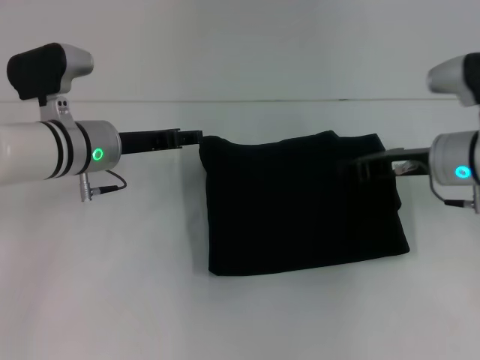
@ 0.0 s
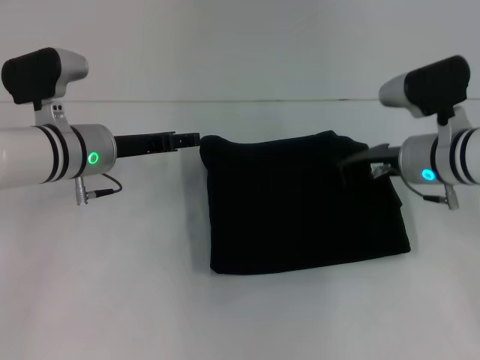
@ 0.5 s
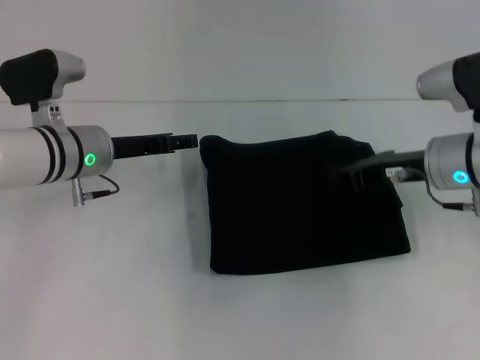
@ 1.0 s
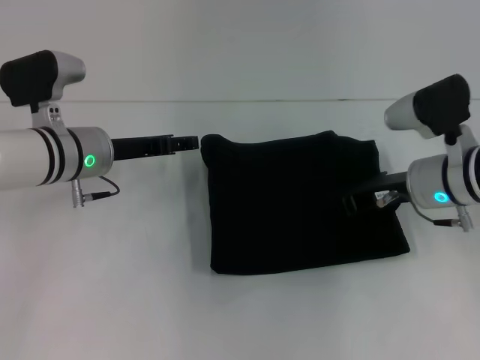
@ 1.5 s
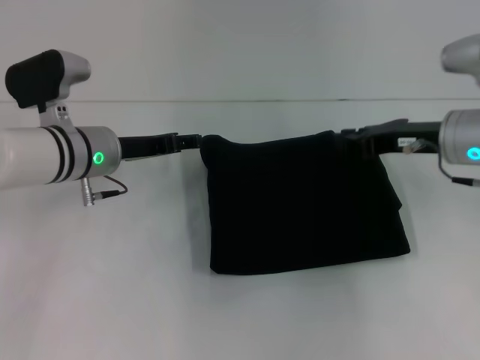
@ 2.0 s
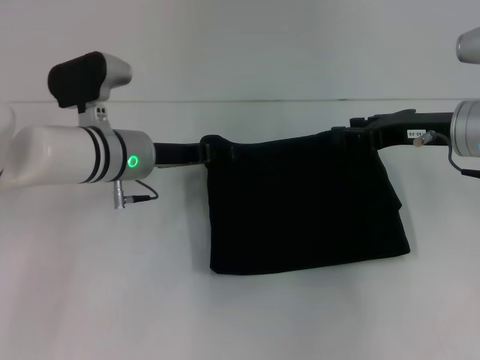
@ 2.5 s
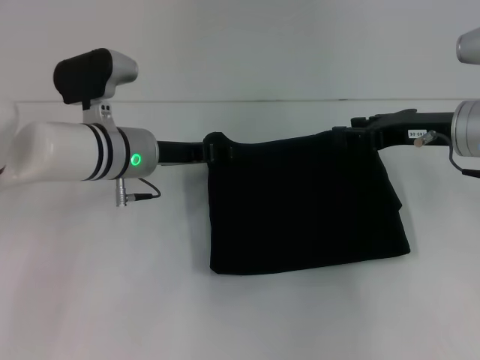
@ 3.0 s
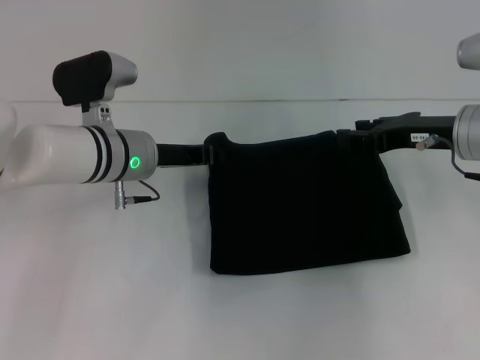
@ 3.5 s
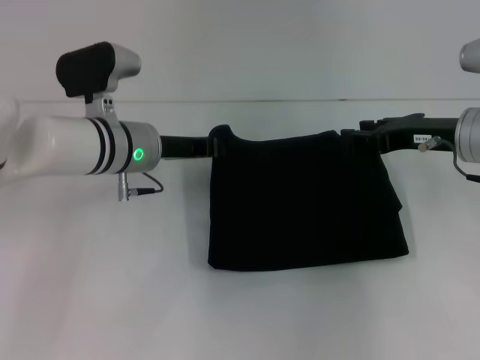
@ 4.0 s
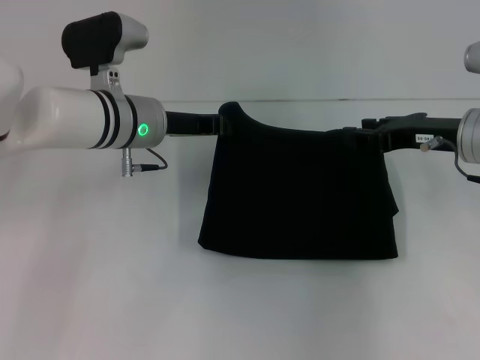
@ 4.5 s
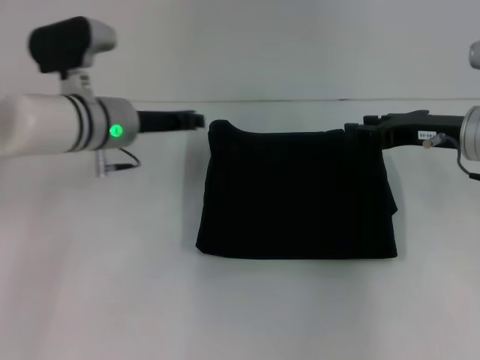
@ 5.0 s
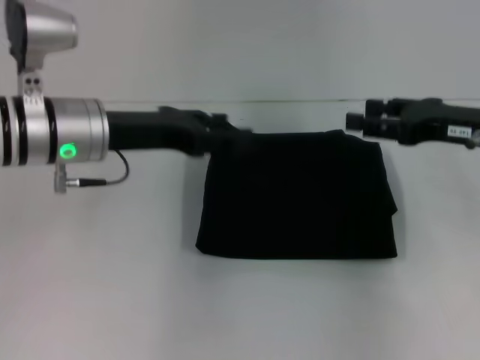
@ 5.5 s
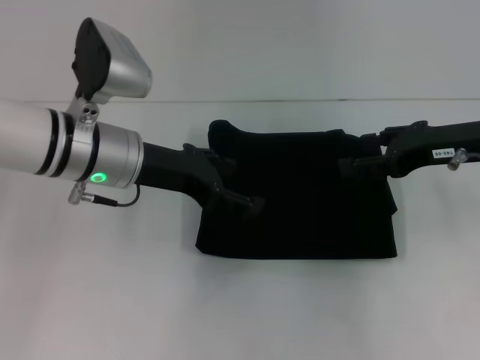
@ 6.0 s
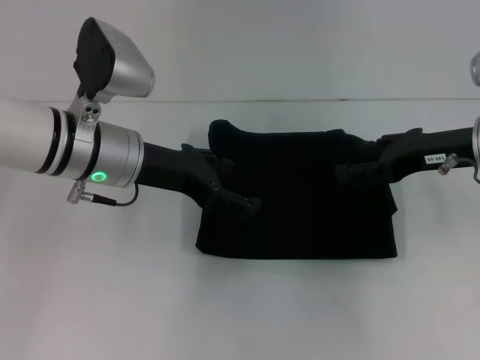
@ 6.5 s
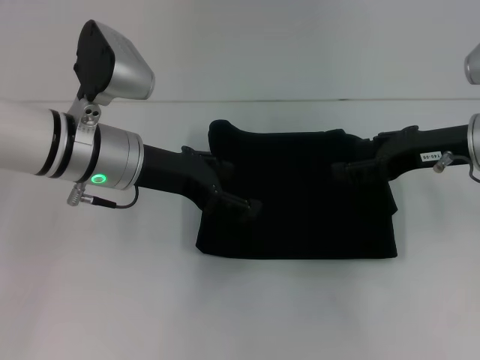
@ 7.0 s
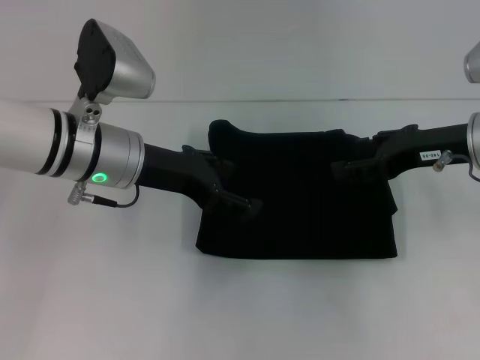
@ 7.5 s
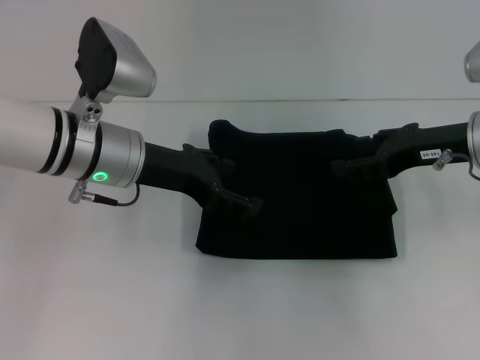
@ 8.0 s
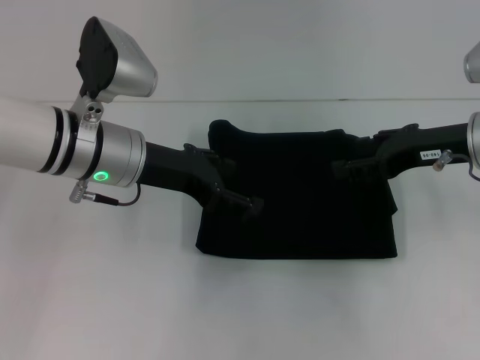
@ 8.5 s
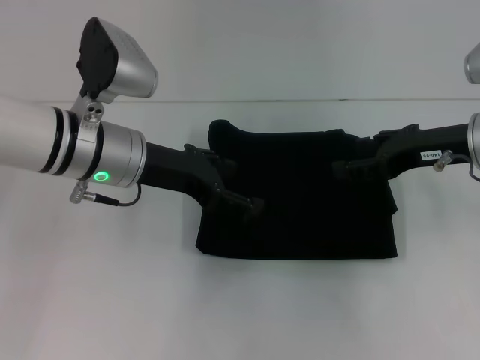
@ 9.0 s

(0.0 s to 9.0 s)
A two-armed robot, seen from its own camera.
0.0 s - 2.0 s: The left gripper opens its fingers.
2.0 s - 4.5 s: The right gripper opens up. The left gripper changes place by approximately 5 cm, and closes up.
4.5 s - 7.0 s: The left gripper shifts roughly 5 cm backward, and opens its fingers. The right gripper opens its fingers.
7.0 s - 9.0 s: Both grippers stay put.

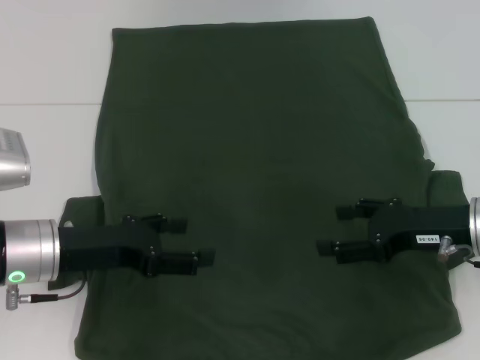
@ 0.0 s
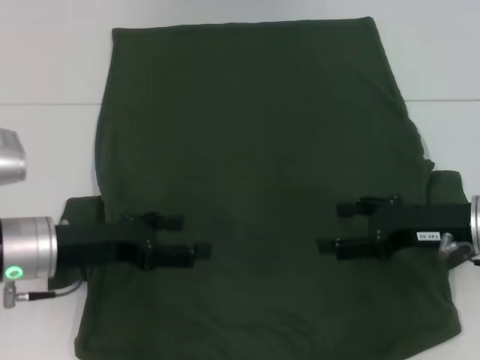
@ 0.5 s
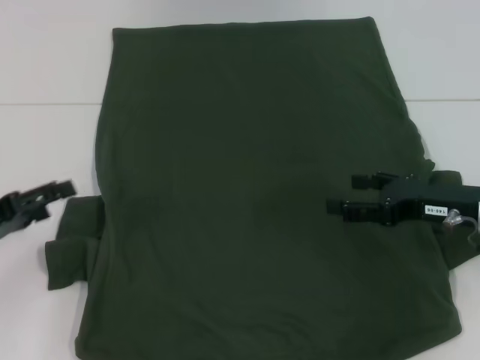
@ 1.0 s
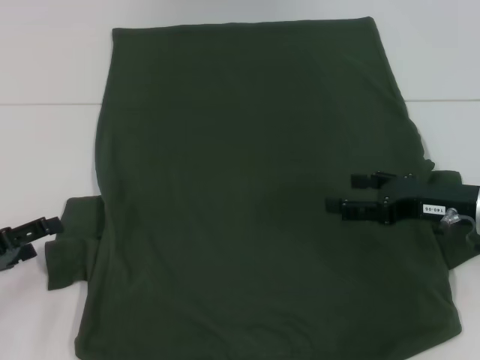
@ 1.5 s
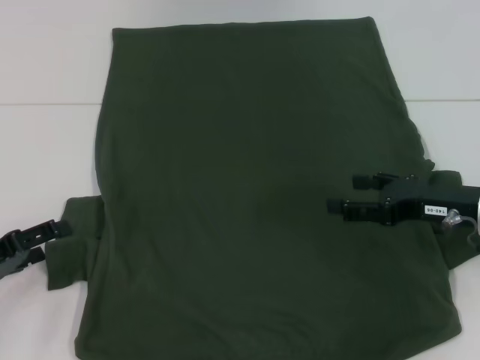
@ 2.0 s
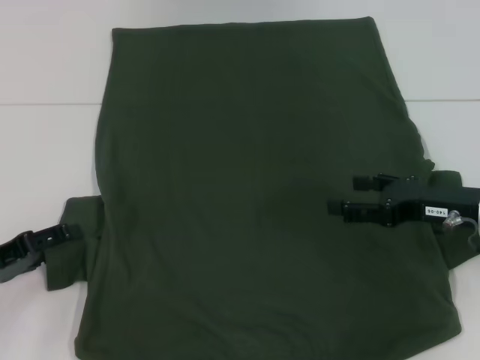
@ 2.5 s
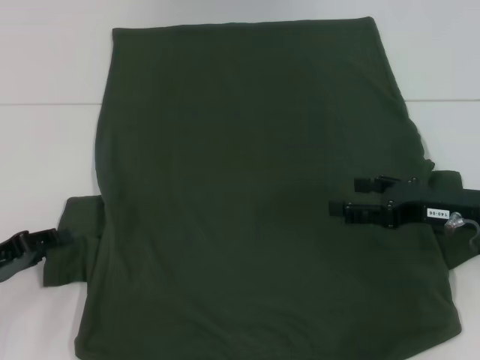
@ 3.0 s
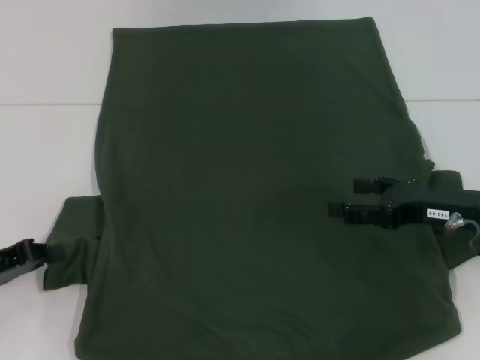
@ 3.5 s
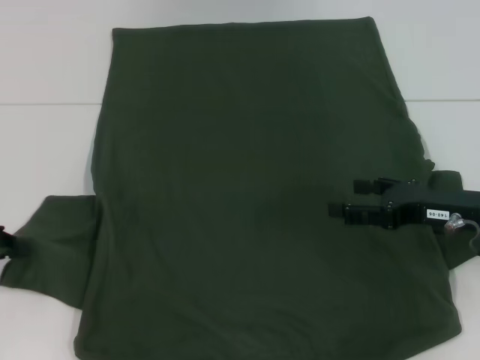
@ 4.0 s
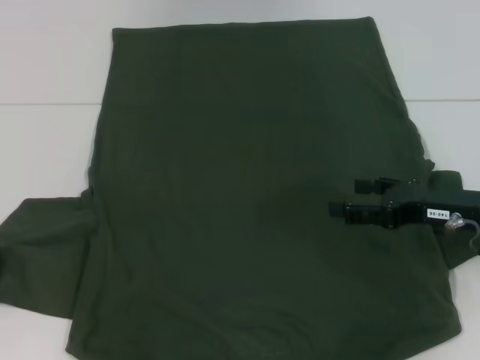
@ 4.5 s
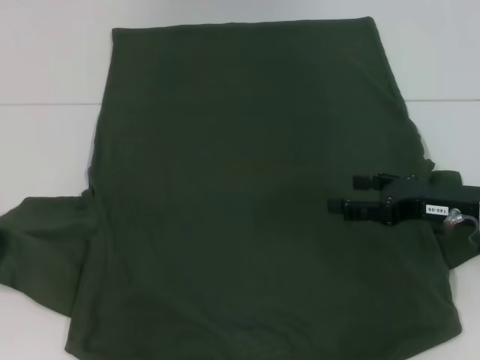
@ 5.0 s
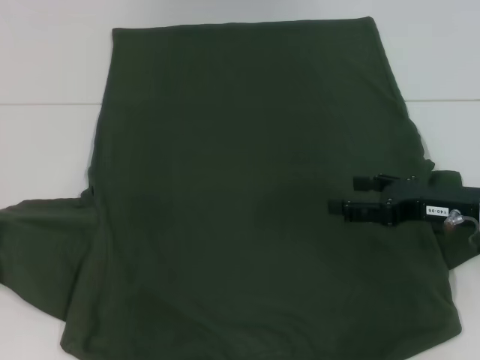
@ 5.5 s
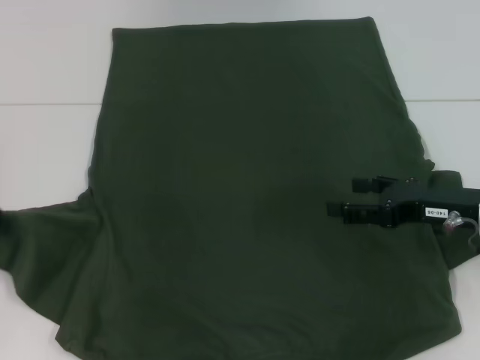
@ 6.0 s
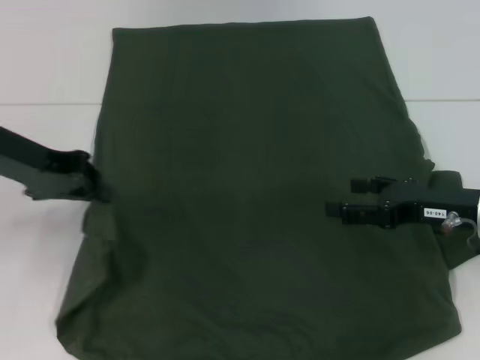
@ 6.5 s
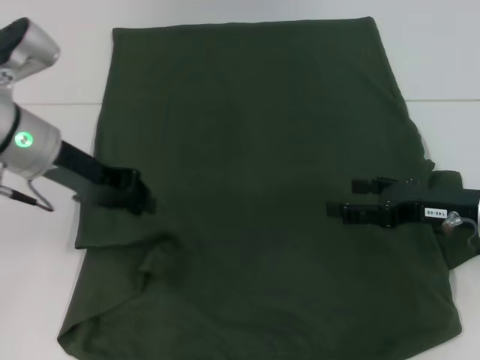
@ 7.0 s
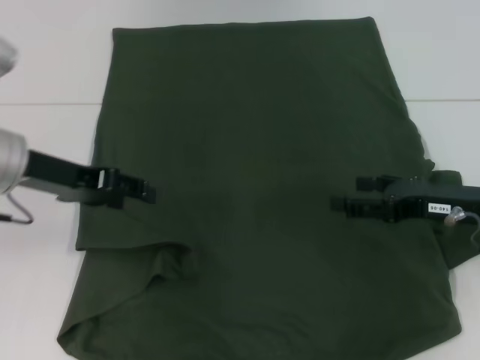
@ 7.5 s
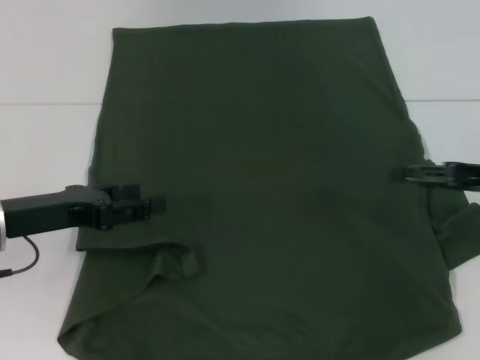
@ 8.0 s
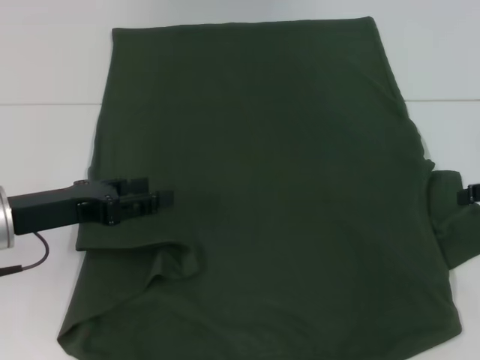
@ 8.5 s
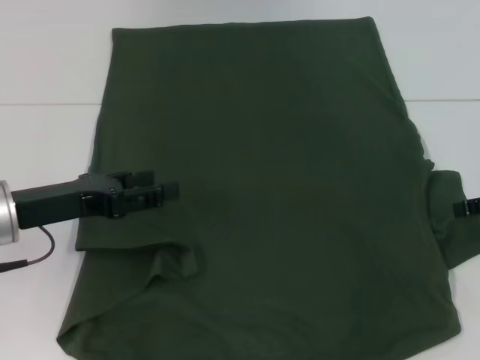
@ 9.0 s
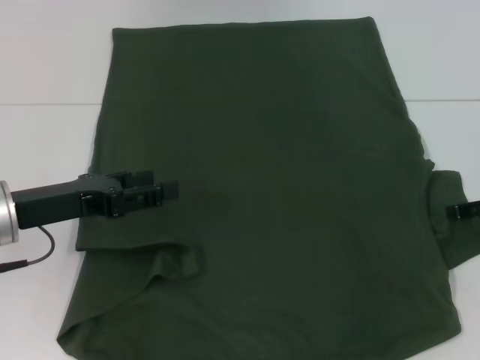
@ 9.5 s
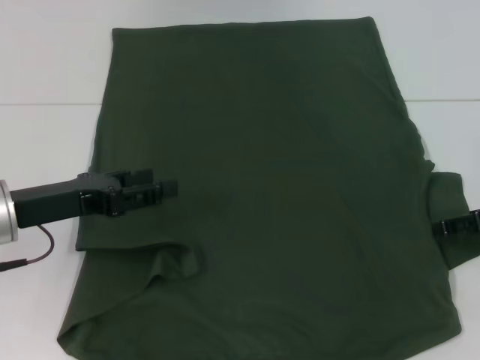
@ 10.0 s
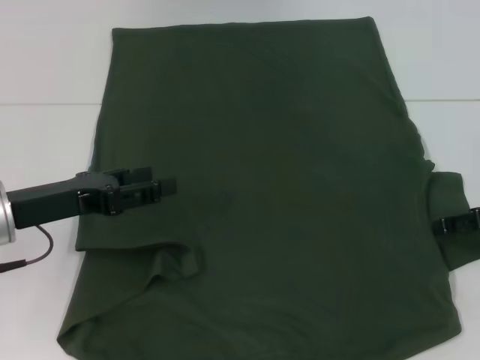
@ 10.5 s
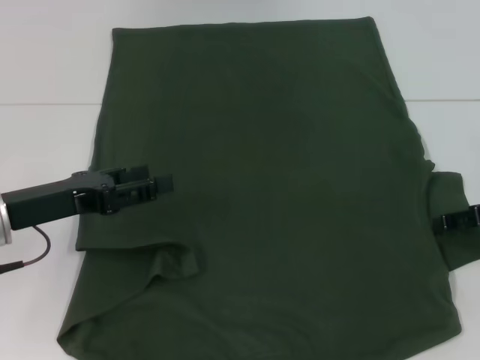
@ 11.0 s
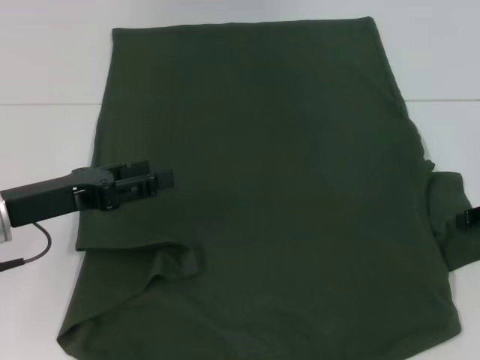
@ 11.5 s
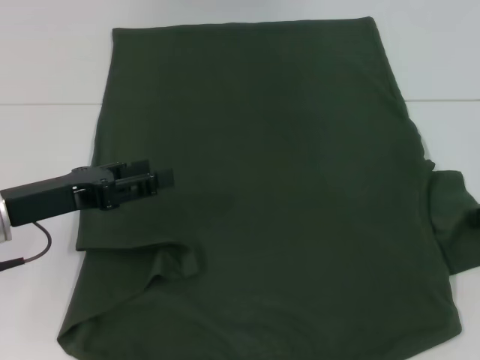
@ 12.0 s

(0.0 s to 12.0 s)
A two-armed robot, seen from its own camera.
Step, 0.0 s - 7.0 s: Fold the bottom left sleeve with your left hand.
0.0 s - 2.0 s: The left gripper shifts some 10 cm to the left.
2.0 s - 4.0 s: The left gripper changes place by about 5 cm, and closes.
4.0 s - 6.0 s: The left gripper moves upward, roughly 10 cm.
6.0 s - 8.0 s: The right gripper moves to the right, some 5 cm, while the left gripper is displaced to the right and downward by some 10 cm, and opens up.

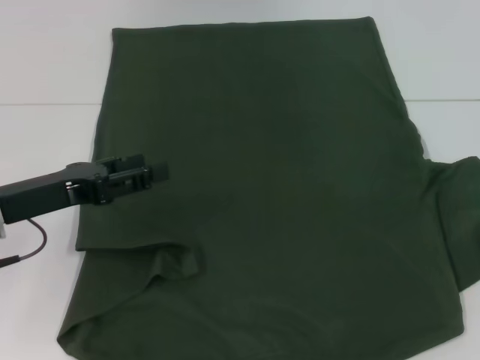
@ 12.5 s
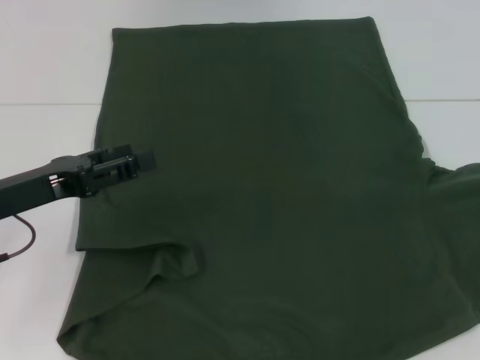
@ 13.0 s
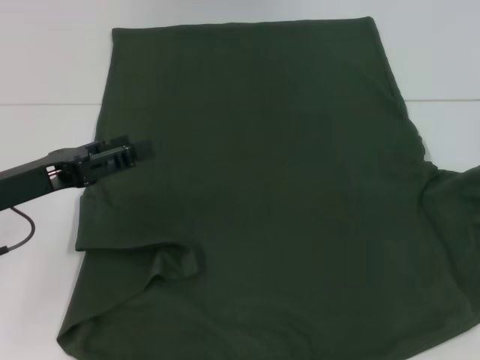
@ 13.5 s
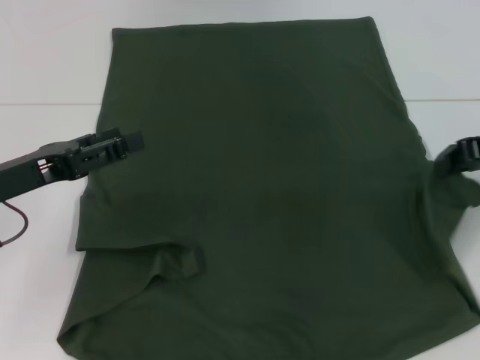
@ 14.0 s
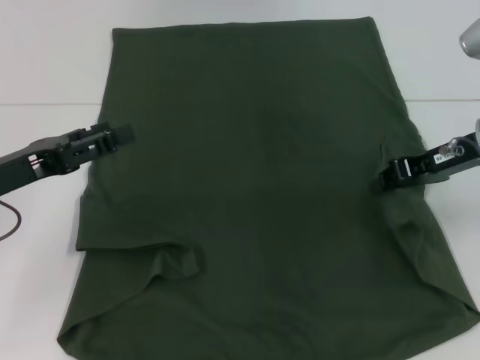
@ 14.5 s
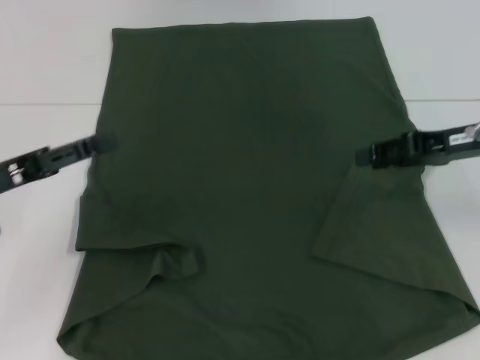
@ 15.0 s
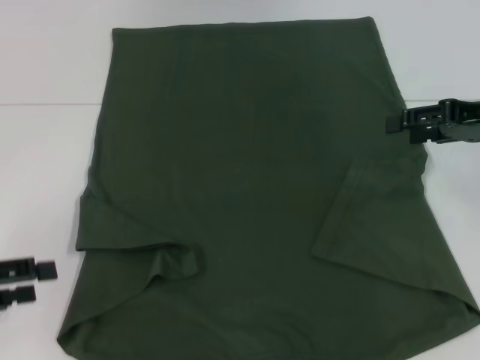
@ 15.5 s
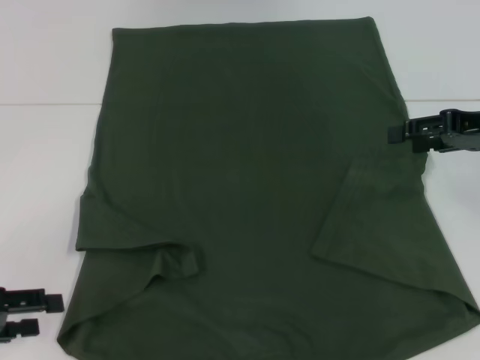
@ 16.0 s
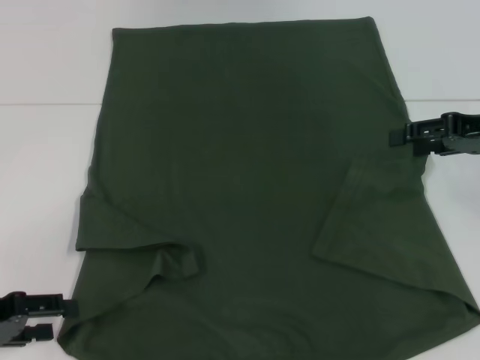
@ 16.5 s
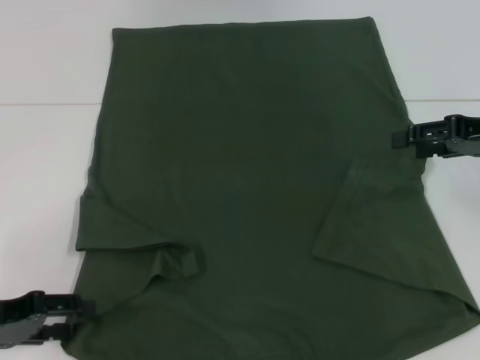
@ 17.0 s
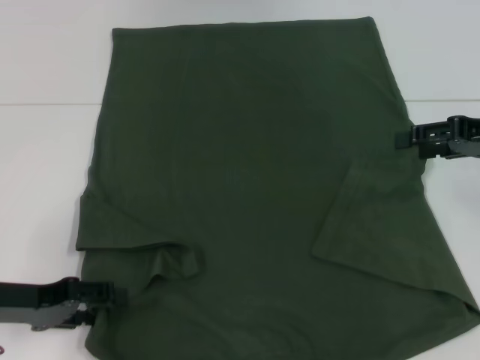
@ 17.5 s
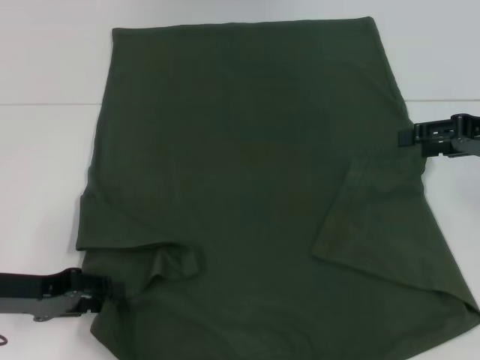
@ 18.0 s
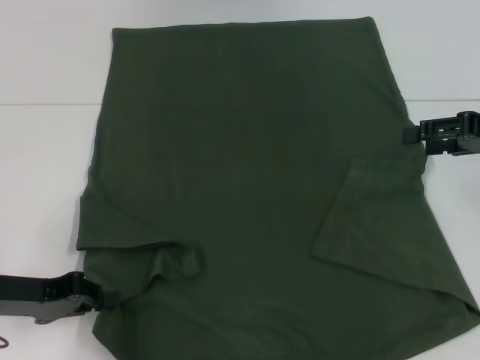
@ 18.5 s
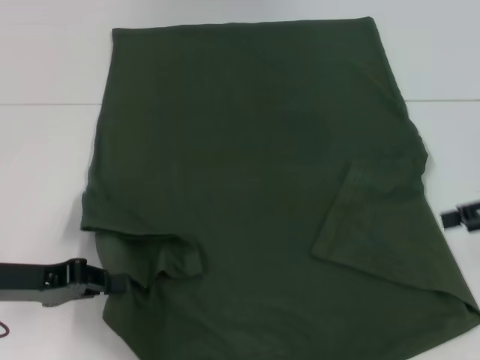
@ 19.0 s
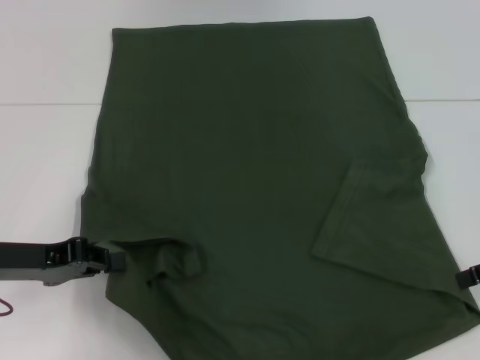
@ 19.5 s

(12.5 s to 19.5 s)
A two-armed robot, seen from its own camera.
Step, 12.5 s - 14.5 s: Fold the bottom right sleeve with your right hand.
Step, 15.0 s - 18.5 s: Grab the bottom left corner with your left hand.
12.5 s - 14.5 s: The right gripper heads to the left, covering approximately 15 cm.
14.5 s - 16.0 s: The left gripper goes some 10 cm backward and to the left; the right gripper goes roughly 5 cm to the right, and opens.
16.0 s - 17.5 s: The left gripper goes some 5 cm to the right.
17.5 s - 19.5 s: The right gripper goes about 5 cm backward. Meanwhile the left gripper closes up.
